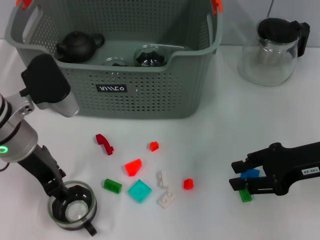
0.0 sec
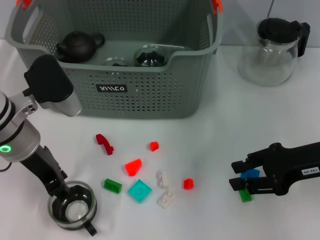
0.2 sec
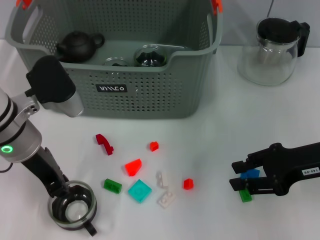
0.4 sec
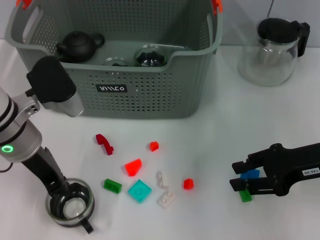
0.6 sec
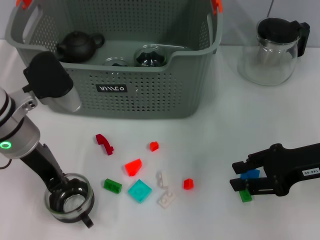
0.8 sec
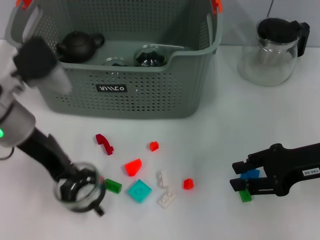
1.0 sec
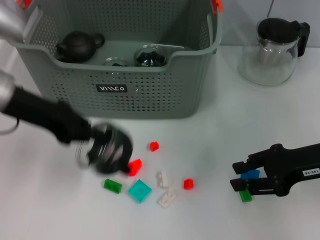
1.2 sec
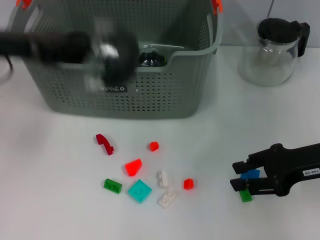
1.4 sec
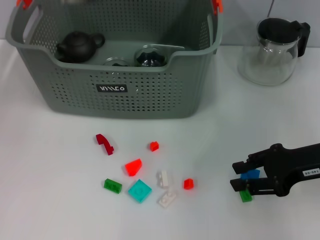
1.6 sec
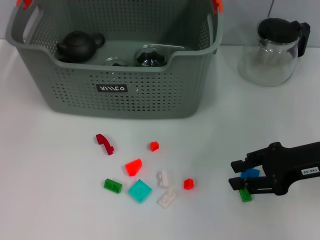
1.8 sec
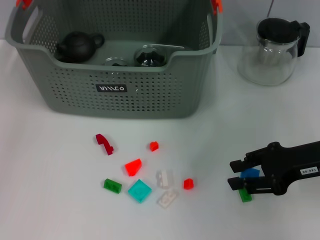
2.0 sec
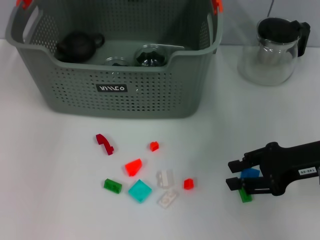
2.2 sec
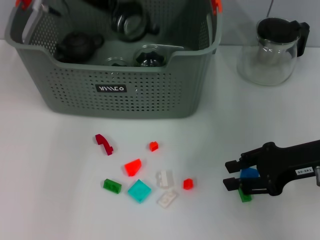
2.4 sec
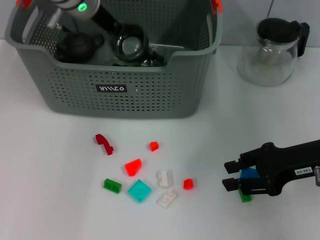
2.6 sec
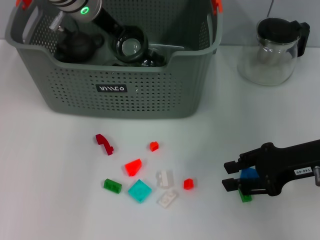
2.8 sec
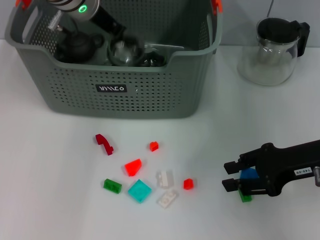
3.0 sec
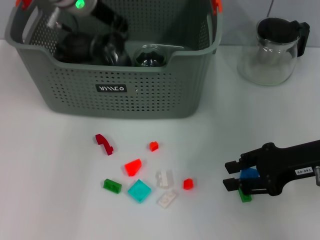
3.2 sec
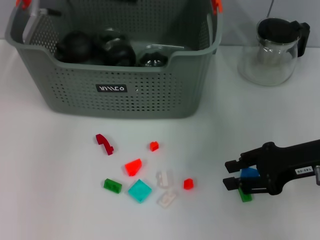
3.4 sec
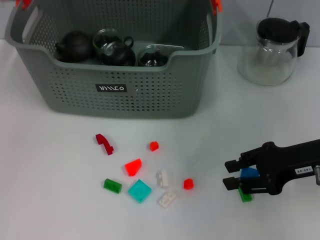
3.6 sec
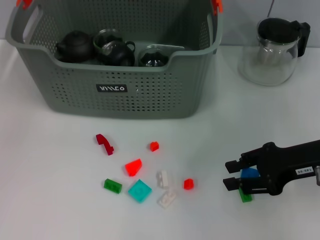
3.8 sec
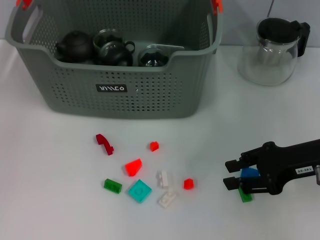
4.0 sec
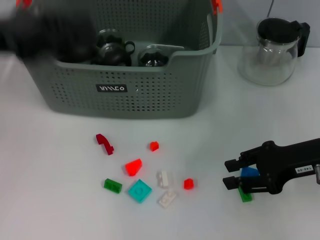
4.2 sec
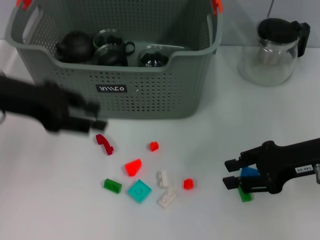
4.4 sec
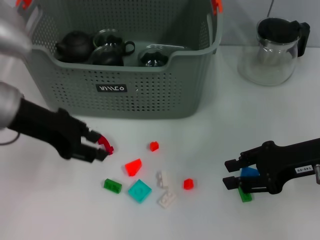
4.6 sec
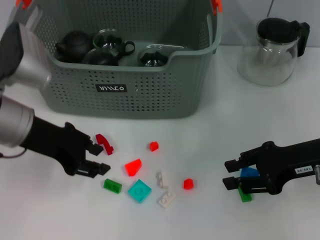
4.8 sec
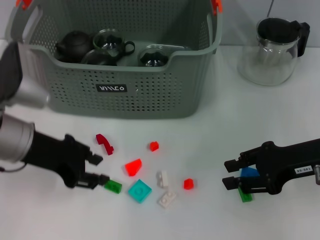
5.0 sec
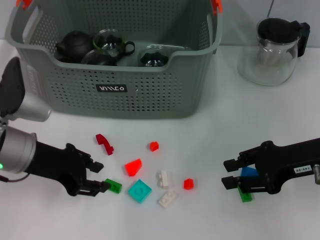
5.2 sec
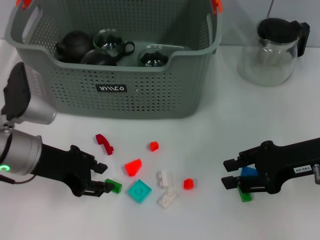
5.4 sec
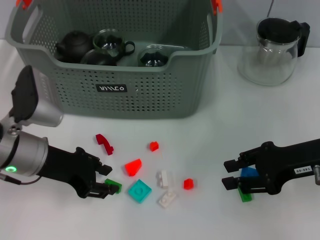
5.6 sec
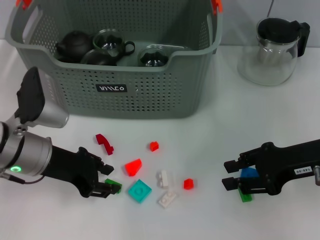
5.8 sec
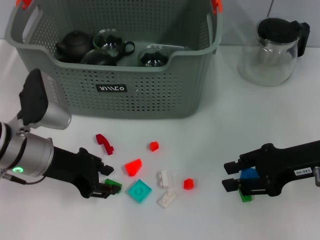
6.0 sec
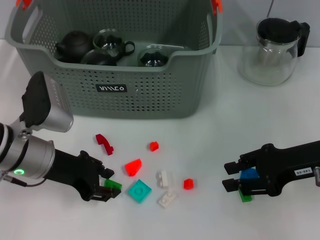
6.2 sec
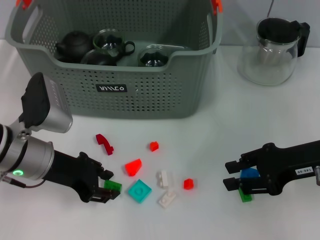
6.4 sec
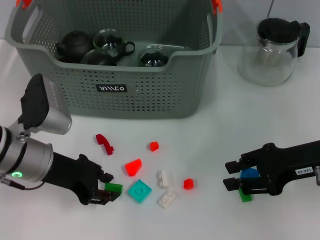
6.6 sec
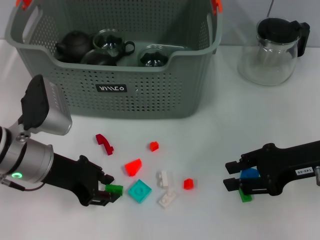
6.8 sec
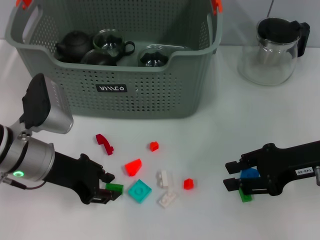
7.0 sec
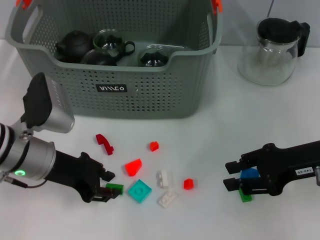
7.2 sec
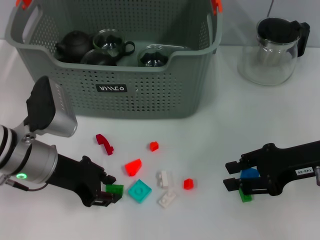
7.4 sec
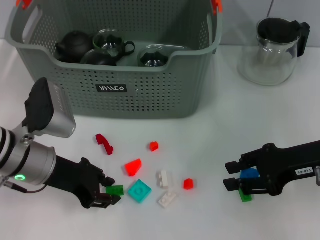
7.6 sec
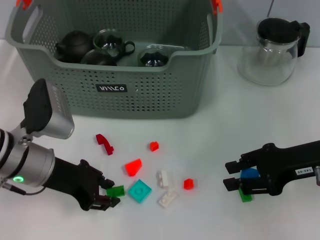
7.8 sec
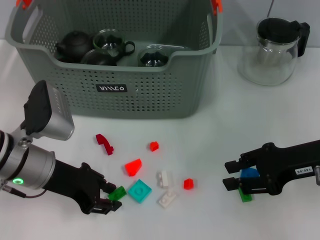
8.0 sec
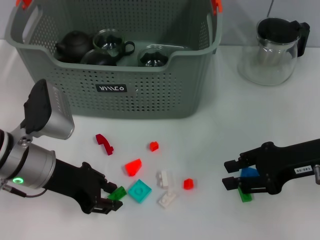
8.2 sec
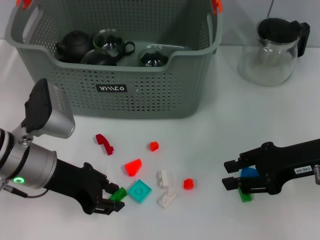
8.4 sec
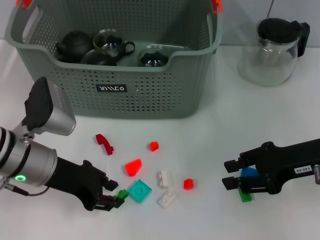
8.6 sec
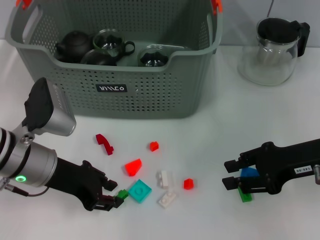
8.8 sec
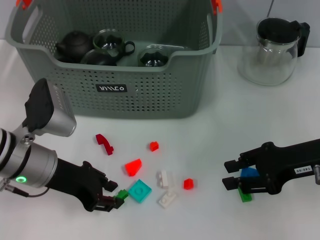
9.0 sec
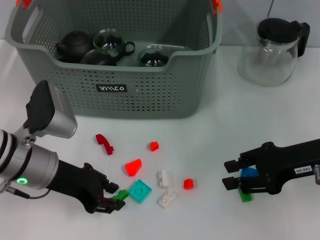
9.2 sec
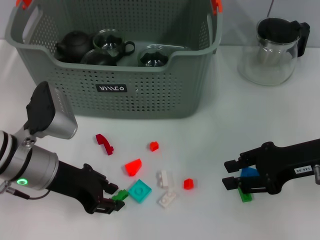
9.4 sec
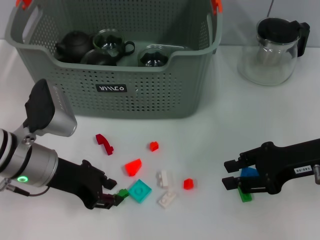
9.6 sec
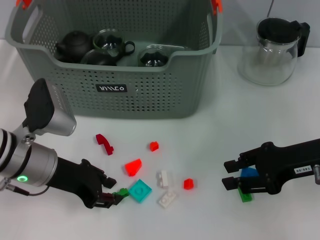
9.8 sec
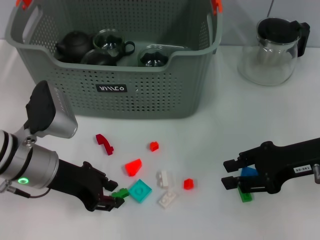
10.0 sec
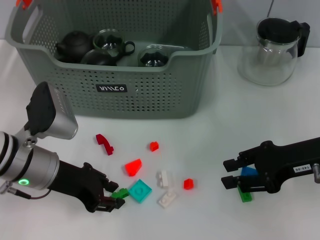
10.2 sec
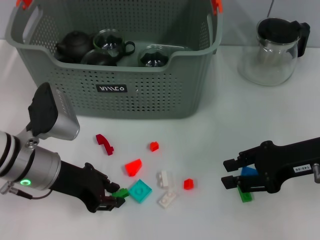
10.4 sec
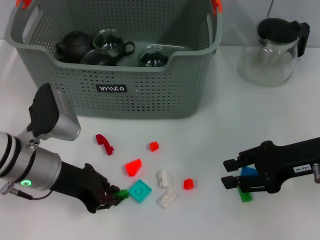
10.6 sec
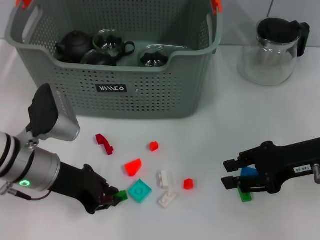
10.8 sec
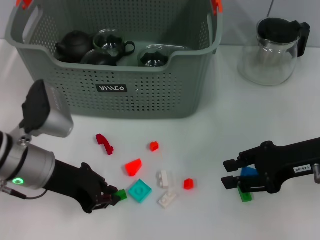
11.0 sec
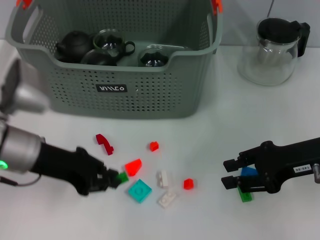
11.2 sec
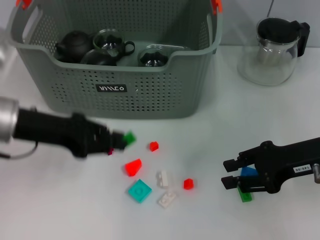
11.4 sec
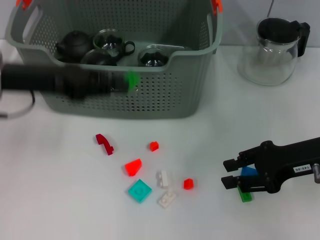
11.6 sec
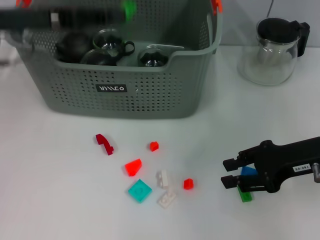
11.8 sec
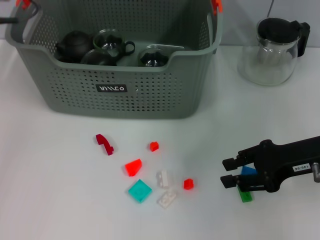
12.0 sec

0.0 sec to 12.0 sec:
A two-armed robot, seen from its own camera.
Task of the whole recording: pick up the teacup on the table and place it into the storage bin, pick up the block on the table and place it into the storage bin.
Step, 0.8 sec to 3.2 sec: Place the cup in the storage box with left gripper.
Step, 3.4 sec to 10.6 sec: Grasp the green block with left gripper.
0.0 sec to 1.6 sec: The left gripper travels upward and to the left by roughly 15 cm, and closes its fingers.
1.6 sec to 3.0 sec: The left gripper travels to the right and forward by some 20 cm.
3.0 sec to 4.4 sec: The left gripper shifts approximately 20 cm backward and to the left, and opens its fingers.
4.4 sec to 6.0 sec: The left gripper is displaced downward by some 10 cm.
6.0 sec to 7.6 sec: Both grippers stay about where they are.
7.6 sec to 10.4 sec: Both grippers stay put.
10.4 sec to 12.0 sec: The left gripper goes some 20 cm upward and forward.

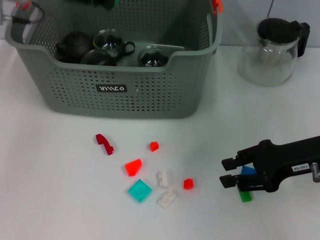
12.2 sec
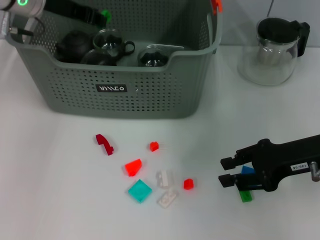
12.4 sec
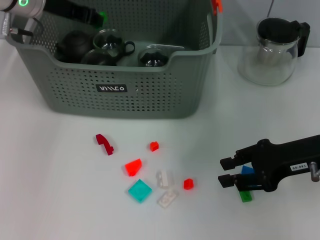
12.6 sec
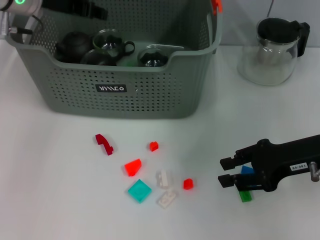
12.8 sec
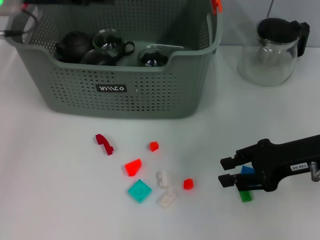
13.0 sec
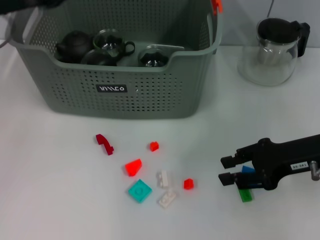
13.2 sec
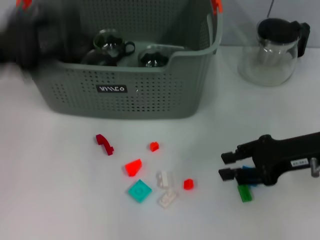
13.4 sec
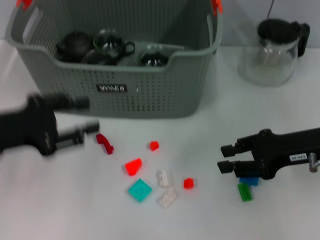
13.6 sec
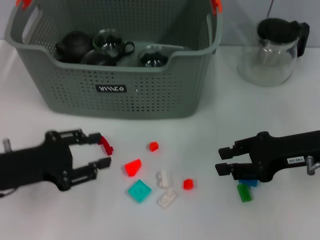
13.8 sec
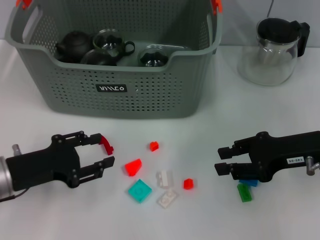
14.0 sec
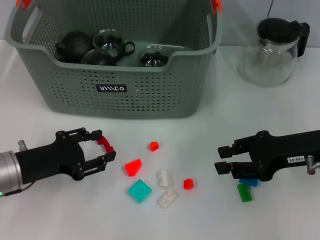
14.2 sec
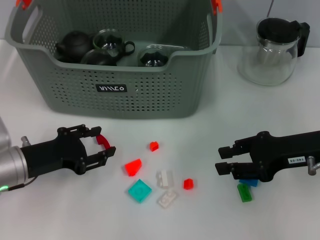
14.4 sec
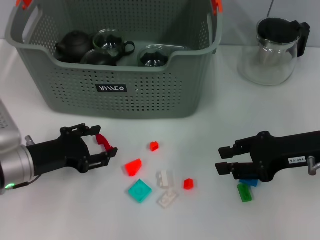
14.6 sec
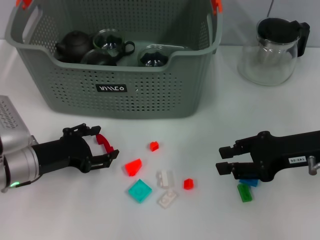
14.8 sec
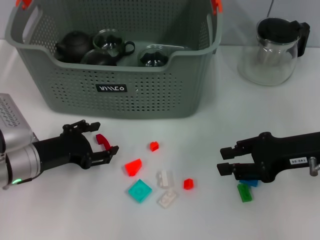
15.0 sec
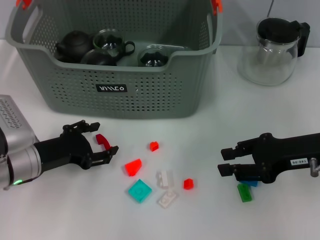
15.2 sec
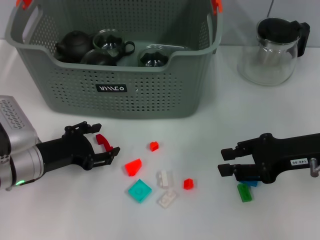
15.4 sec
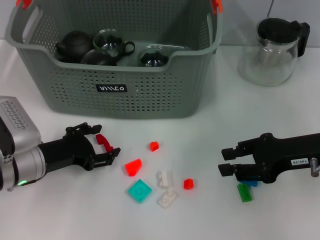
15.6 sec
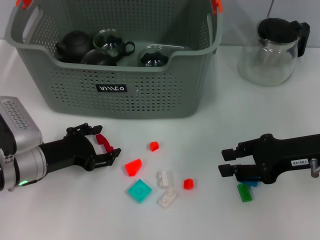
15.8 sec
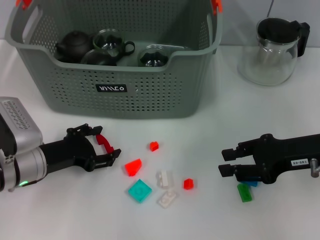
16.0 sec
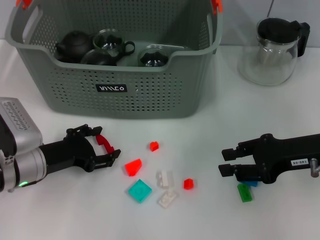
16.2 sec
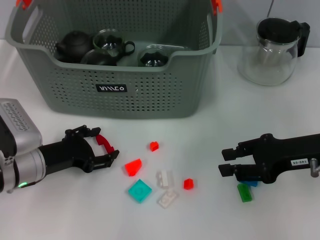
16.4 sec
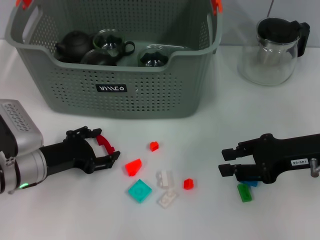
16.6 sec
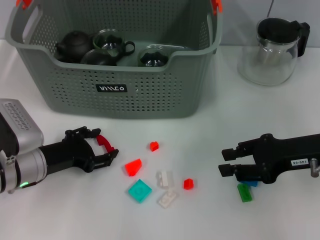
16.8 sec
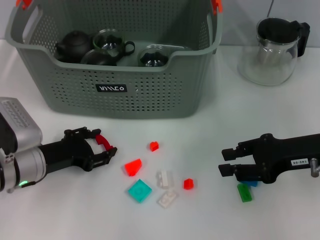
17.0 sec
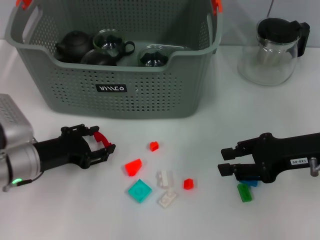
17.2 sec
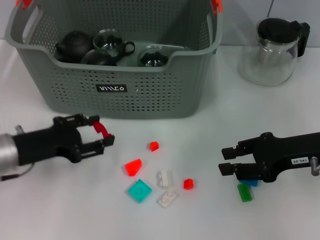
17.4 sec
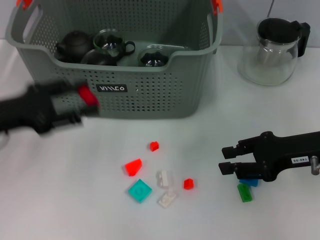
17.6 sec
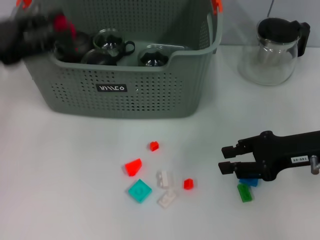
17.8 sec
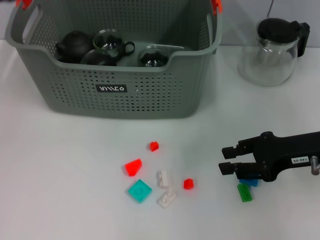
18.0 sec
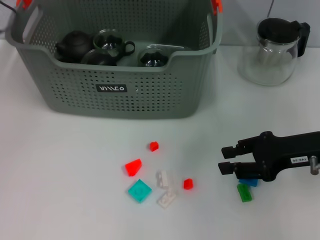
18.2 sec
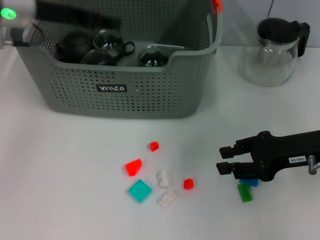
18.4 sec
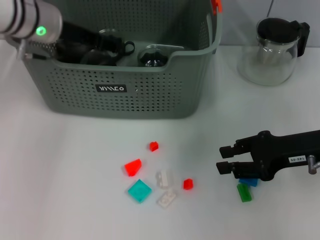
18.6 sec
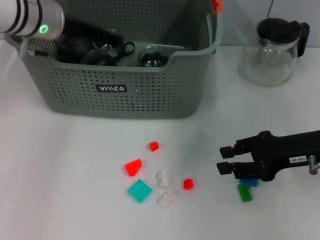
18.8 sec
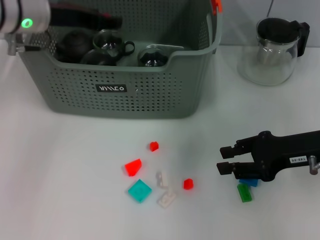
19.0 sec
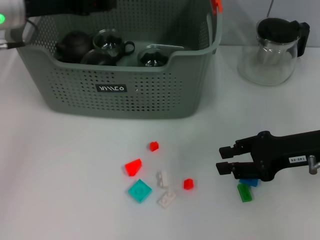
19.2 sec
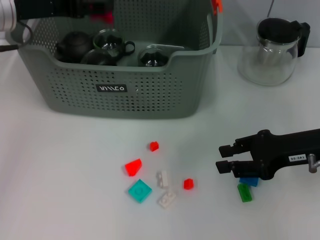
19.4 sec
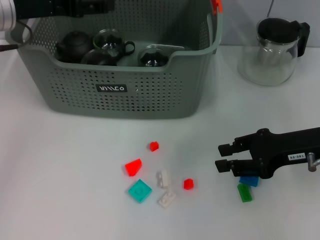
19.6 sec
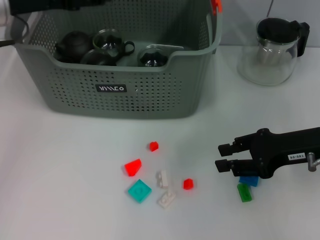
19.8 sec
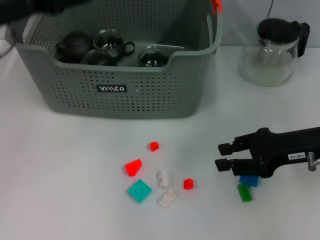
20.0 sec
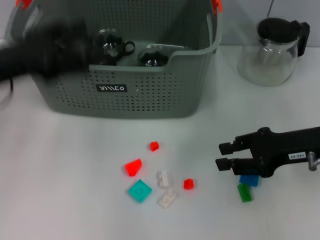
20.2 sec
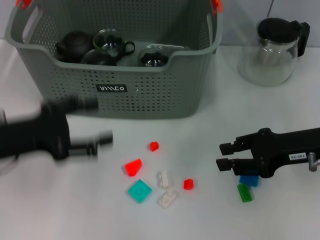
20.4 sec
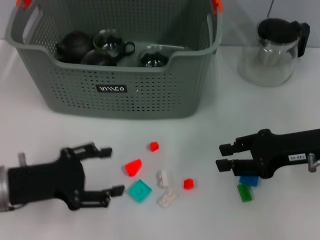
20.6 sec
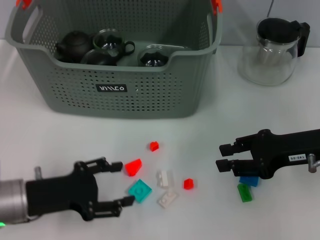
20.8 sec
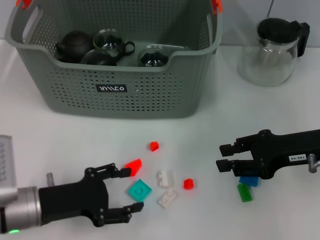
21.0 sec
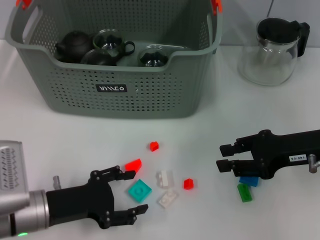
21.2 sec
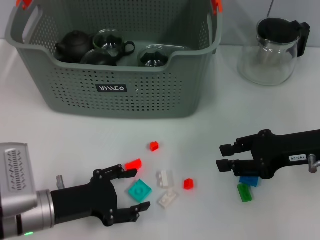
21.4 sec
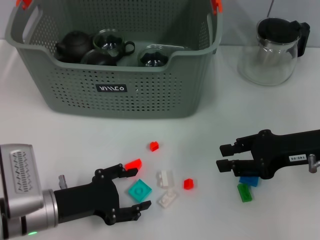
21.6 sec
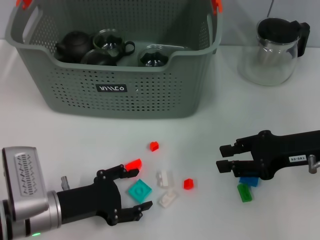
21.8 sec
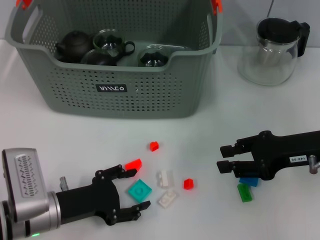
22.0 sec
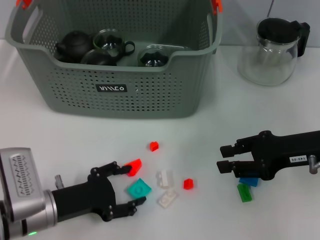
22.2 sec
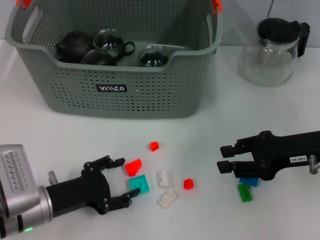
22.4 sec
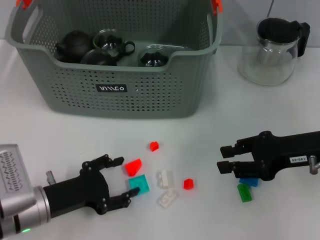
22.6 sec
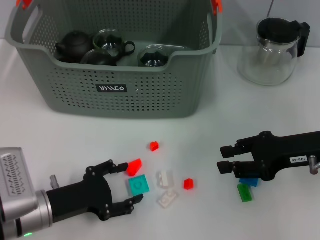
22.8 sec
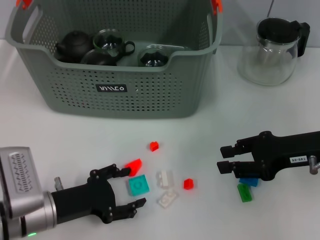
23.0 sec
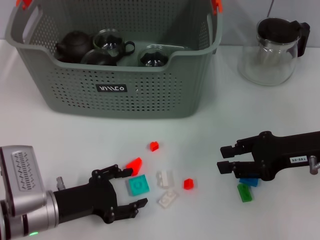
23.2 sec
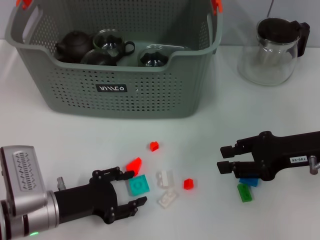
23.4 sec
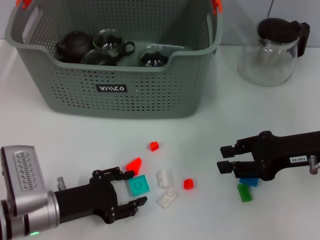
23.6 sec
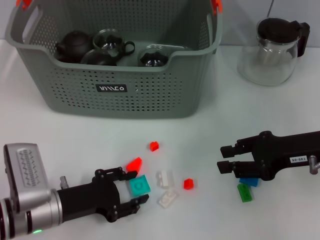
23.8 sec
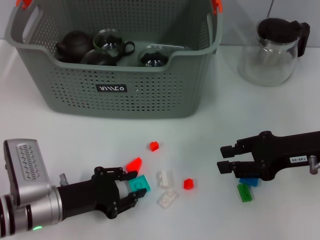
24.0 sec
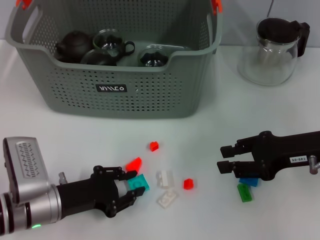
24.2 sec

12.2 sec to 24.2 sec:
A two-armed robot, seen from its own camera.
Task of the whole recording: pick up the teacup on the table and place it into the storage bin, pick up the block on the table and place it into the storage bin.
Step, 13.0 sec to 17.0 sec: Grasp the red block with left gripper.
Step, 17.2 sec to 19.4 sec: Place the red block in the storage box with left gripper.
Step, 19.8 sec to 24.0 sec: Grasp the light blue block with left gripper.
12.2 sec to 13.8 sec: The left gripper moves backward and downward, some 25 cm, and opens up.
13.8 sec to 15.2 sec: The left gripper is displaced downward by roughly 5 cm.
15.2 sec to 16.6 sec: Neither gripper changes place.
16.6 sec to 18.2 sec: The left gripper shifts about 25 cm upward and forward.
18.2 sec to 19.8 sec: The left gripper moves about 10 cm to the right and comes back.
19.8 sec to 21.2 sec: The left gripper heads downward and backward, covering approximately 25 cm.
21.2 sec to 22.6 sec: The grippers make only small movements.
22.6 sec to 24.2 sec: The left gripper closes its fingers.
